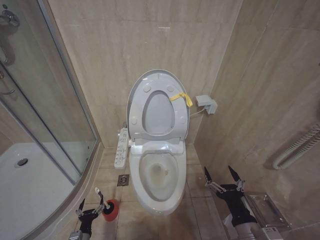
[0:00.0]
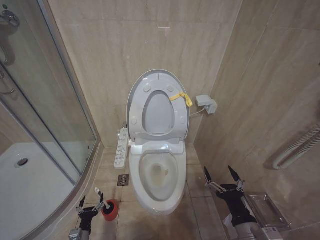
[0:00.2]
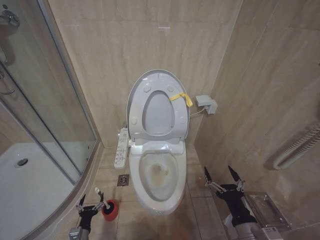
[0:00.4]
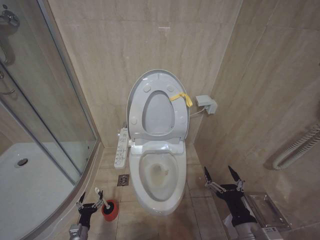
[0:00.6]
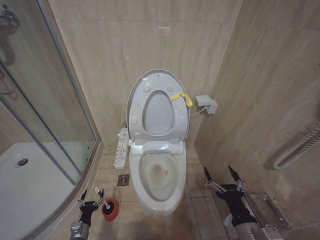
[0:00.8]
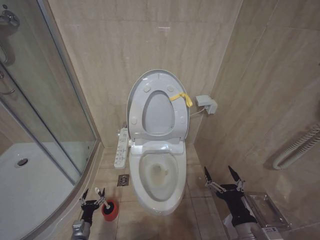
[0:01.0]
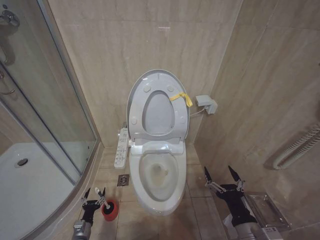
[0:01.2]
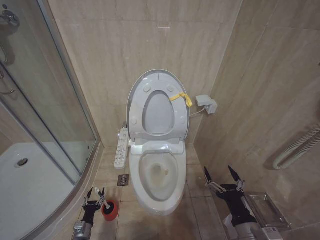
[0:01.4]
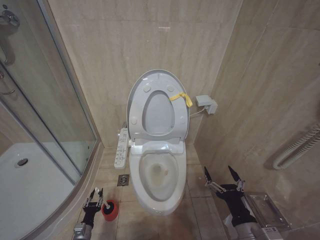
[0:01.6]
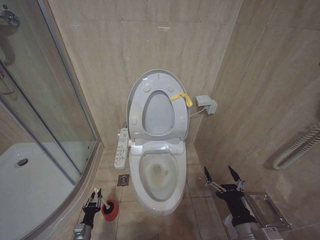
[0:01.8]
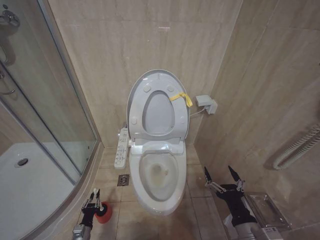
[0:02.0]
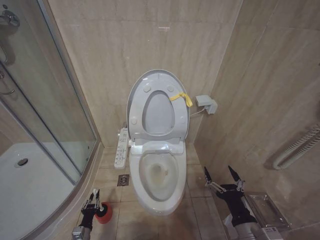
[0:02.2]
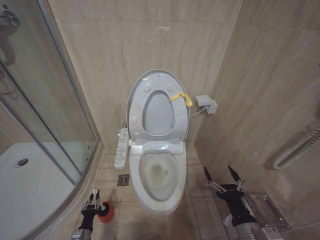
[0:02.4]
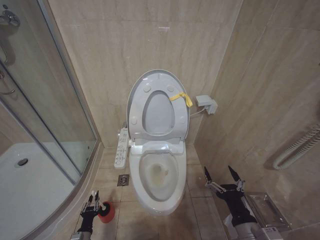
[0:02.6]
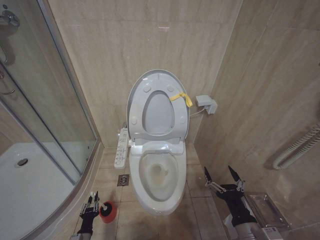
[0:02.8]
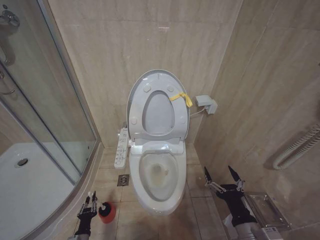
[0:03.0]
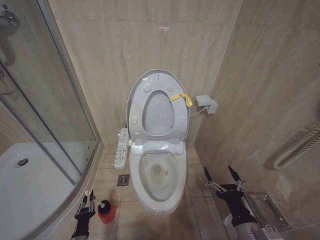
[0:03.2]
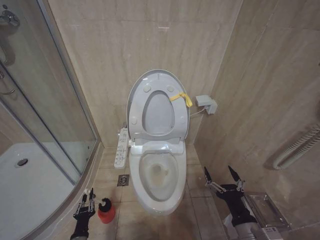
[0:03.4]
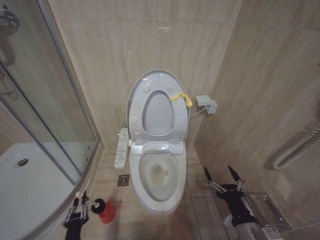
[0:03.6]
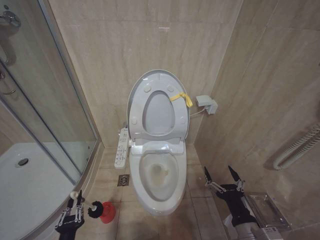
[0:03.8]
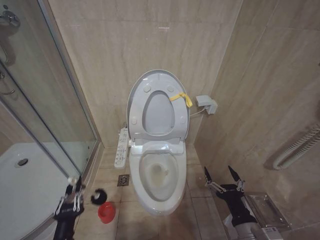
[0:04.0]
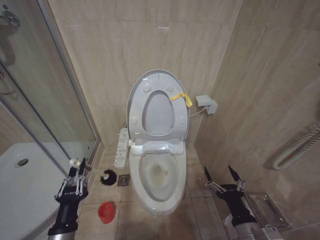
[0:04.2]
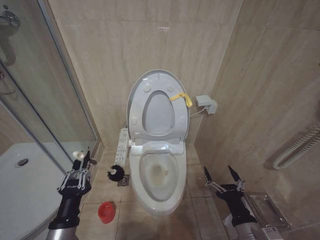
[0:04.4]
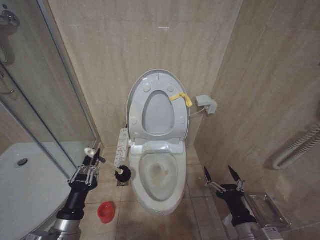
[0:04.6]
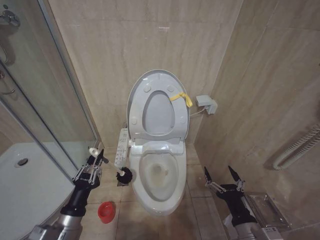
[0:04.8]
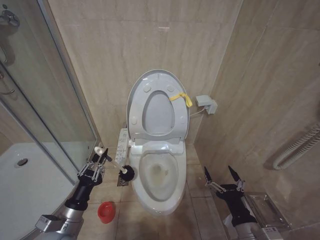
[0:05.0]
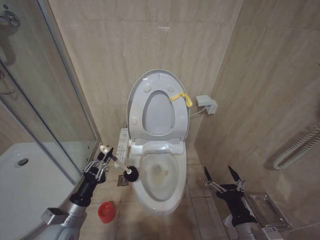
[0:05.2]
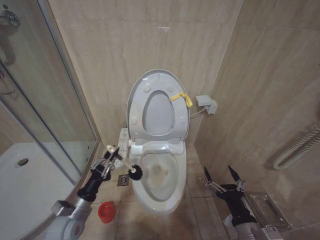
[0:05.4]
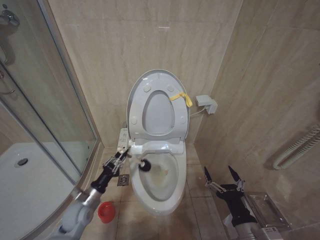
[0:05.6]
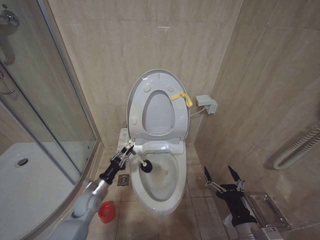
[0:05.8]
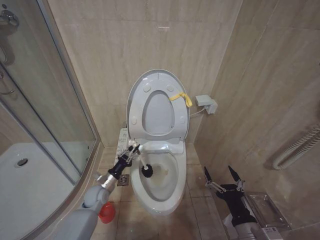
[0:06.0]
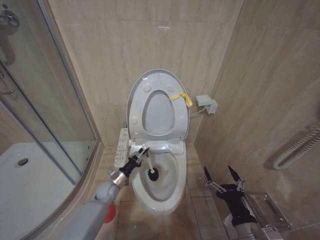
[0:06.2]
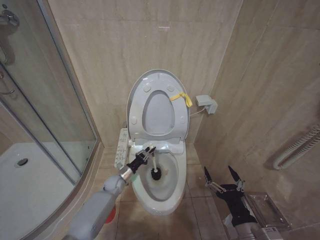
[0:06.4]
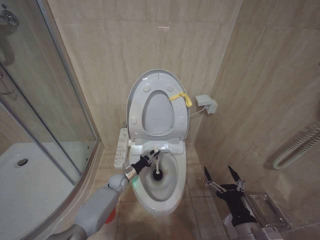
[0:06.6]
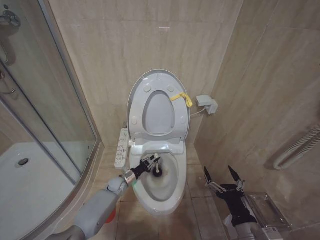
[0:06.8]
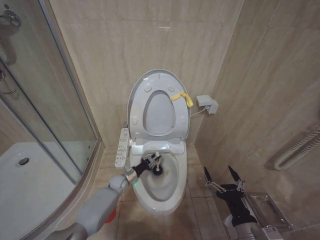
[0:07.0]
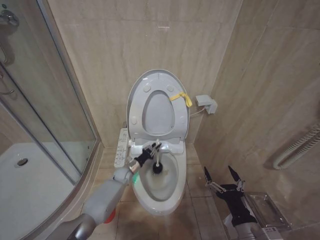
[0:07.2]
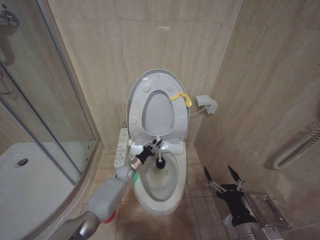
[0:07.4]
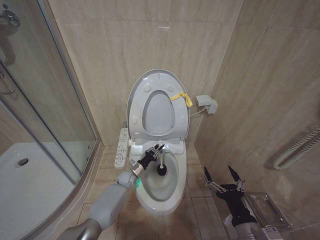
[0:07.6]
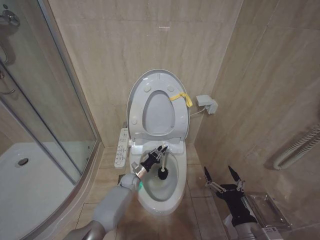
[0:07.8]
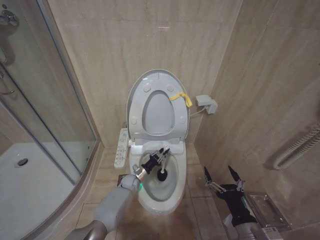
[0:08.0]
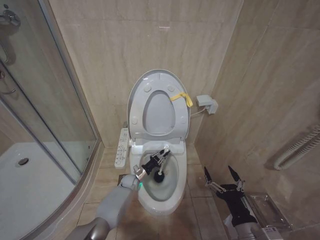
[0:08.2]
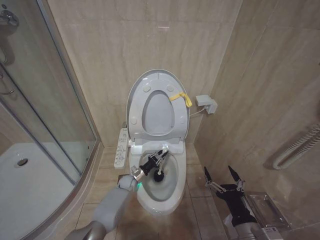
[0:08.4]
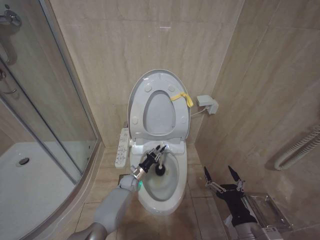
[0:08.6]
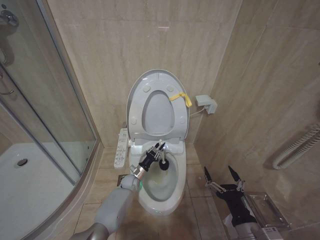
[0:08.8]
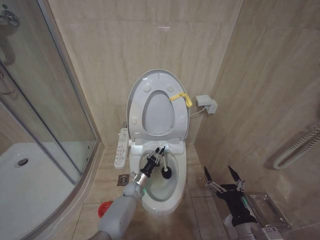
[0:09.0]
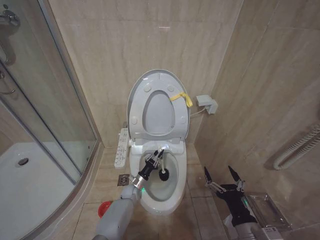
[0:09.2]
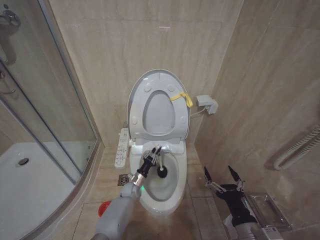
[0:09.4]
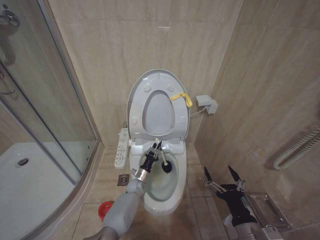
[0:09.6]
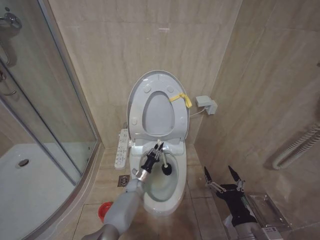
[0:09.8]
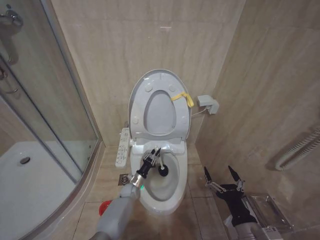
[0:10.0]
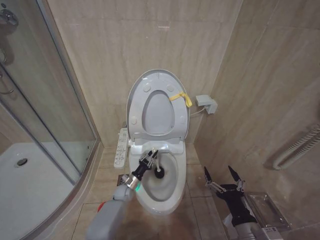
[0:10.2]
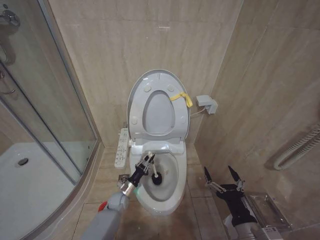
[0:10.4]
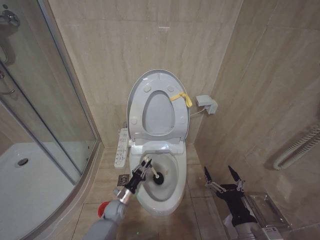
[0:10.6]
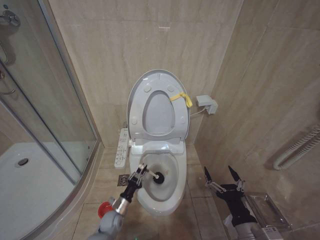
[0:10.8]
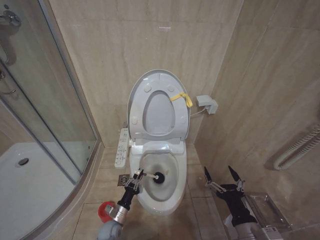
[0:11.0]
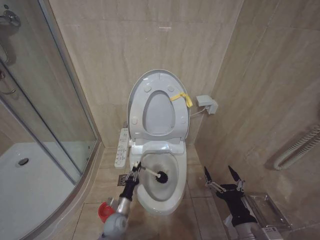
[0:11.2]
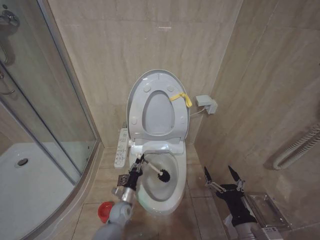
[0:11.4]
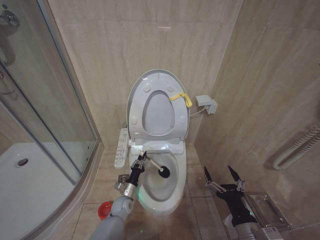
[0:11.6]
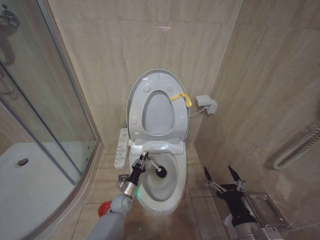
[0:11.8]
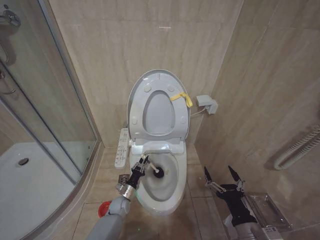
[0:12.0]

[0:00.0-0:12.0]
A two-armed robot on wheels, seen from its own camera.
Task of the whole recording: Open the toilet lid, clean the toilet bowl with a toilet brush, close the toilet lid, and flush.
0:00.0 to 0:01.6: The left gripper changes place by approximately 5 cm.
0:01.6 to 0:03.0: The left gripper closes.
0:03.0 to 0:04.4: The left gripper travels upward by approximately 30 cm.
0:04.4 to 0:06.0: The left gripper goes about 30 cm forward and downward.
0:06.0 to 0:07.6: The left gripper is displaced to the right and forward by approximately 15 cm.
0:07.6 to 0:09.0: The left gripper moves approximately 5 cm.
0:09.0 to 0:10.4: The left gripper shifts some 5 cm to the left.
0:10.4 to 0:12.0: The left gripper moves roughly 10 cm backward and comes back.

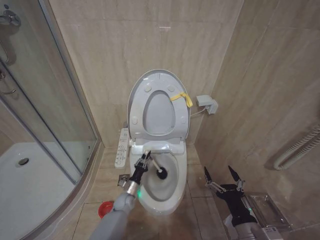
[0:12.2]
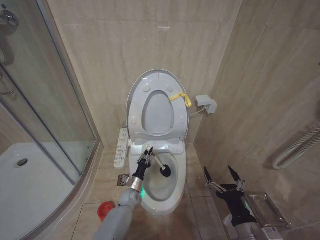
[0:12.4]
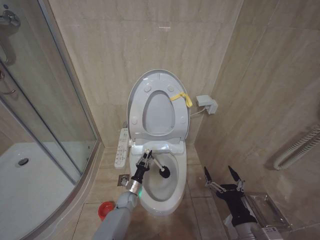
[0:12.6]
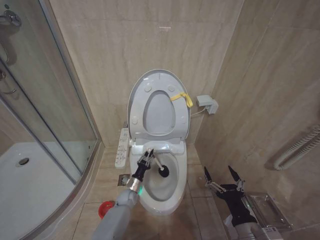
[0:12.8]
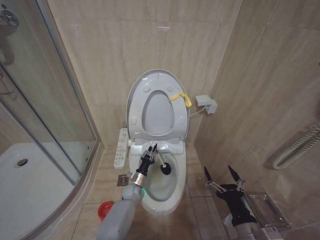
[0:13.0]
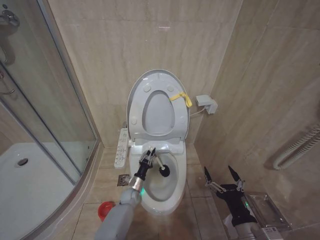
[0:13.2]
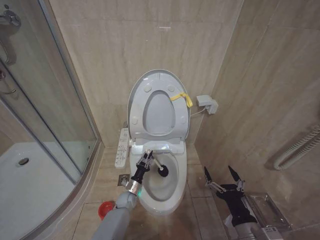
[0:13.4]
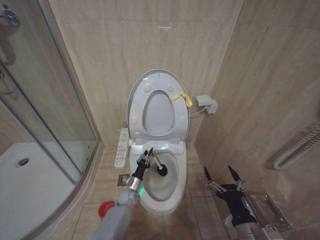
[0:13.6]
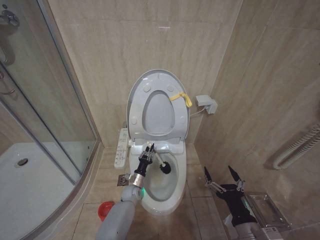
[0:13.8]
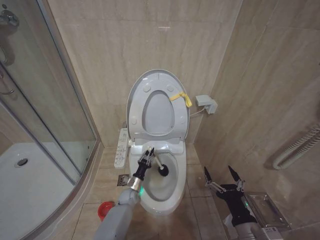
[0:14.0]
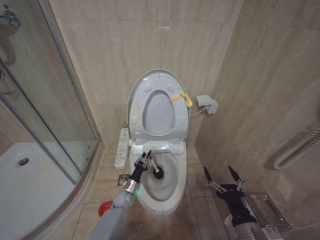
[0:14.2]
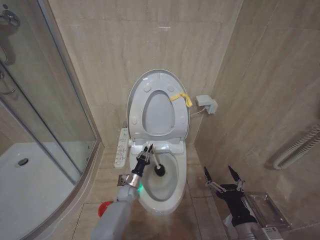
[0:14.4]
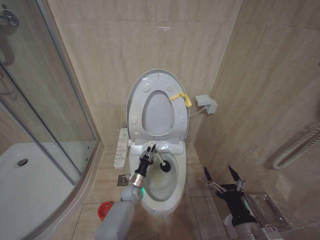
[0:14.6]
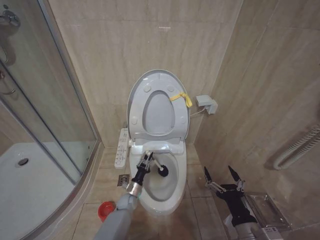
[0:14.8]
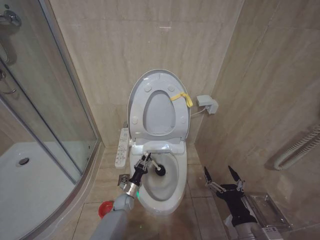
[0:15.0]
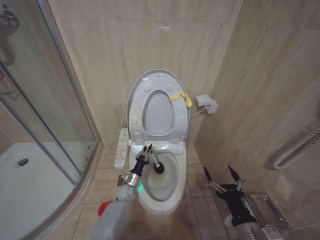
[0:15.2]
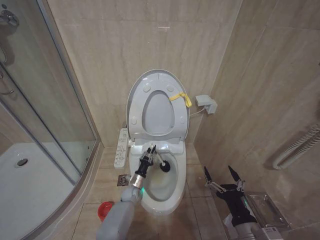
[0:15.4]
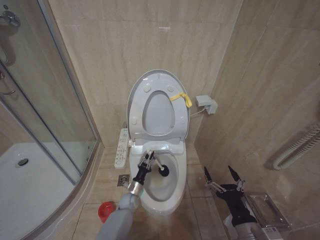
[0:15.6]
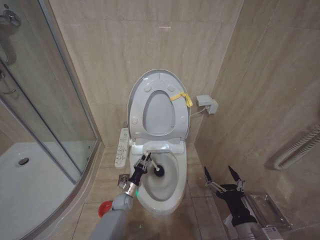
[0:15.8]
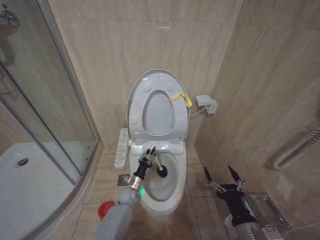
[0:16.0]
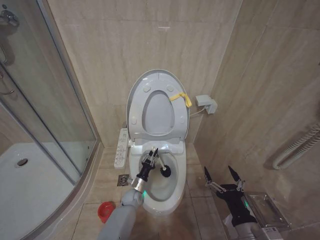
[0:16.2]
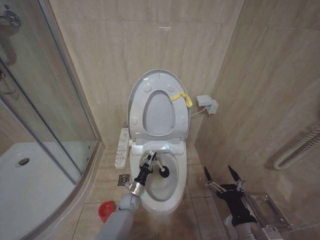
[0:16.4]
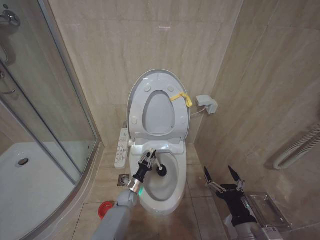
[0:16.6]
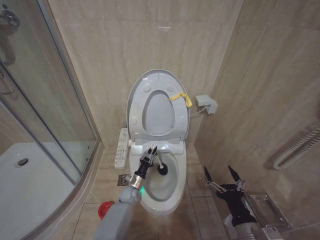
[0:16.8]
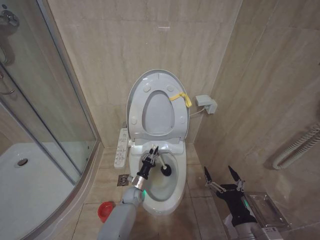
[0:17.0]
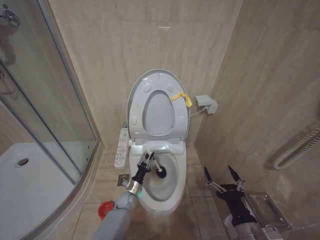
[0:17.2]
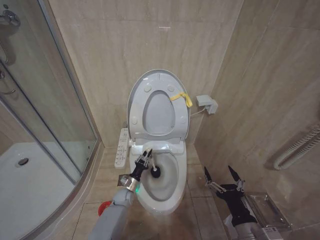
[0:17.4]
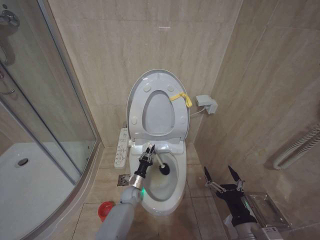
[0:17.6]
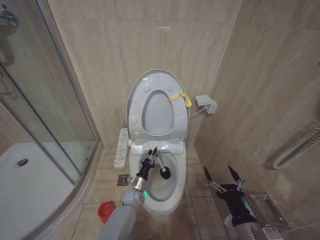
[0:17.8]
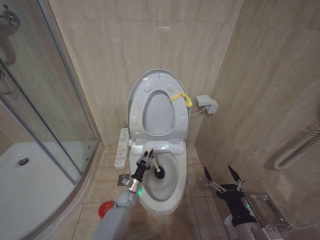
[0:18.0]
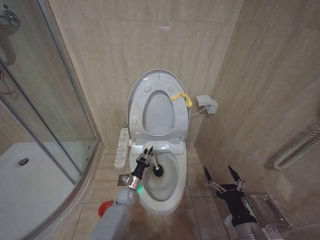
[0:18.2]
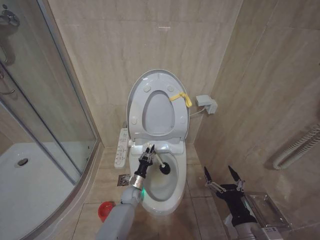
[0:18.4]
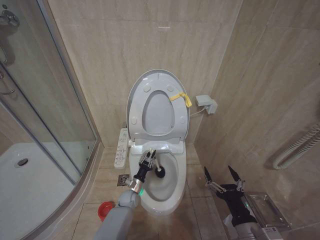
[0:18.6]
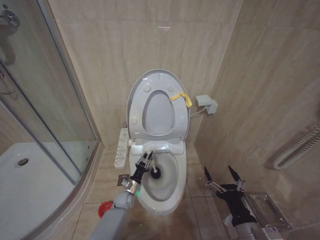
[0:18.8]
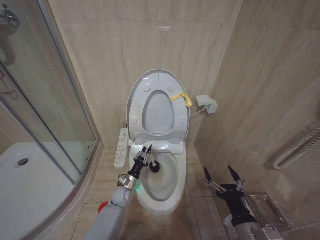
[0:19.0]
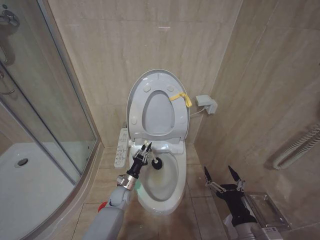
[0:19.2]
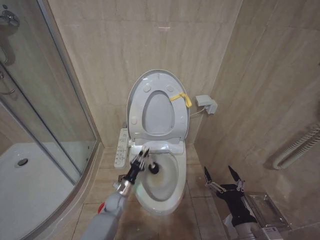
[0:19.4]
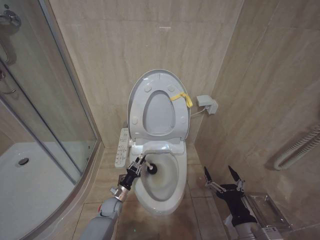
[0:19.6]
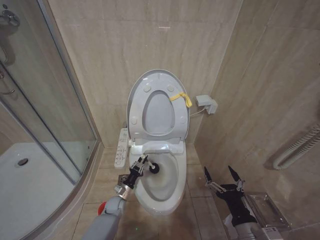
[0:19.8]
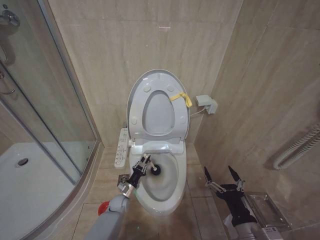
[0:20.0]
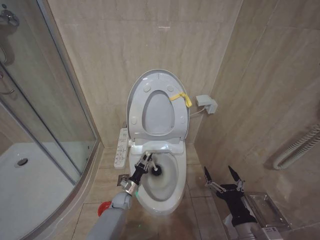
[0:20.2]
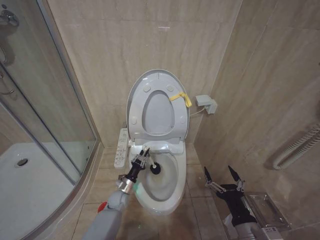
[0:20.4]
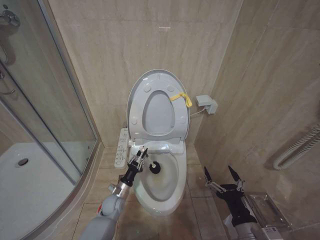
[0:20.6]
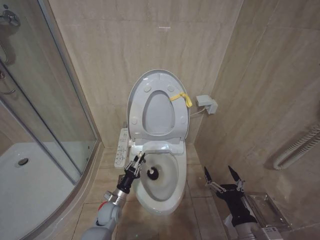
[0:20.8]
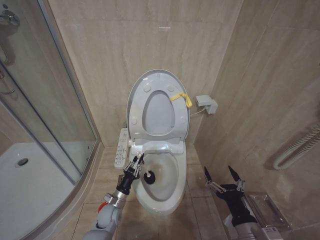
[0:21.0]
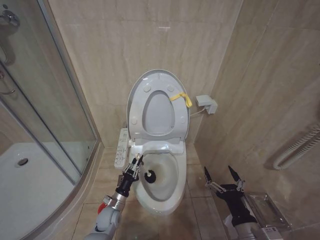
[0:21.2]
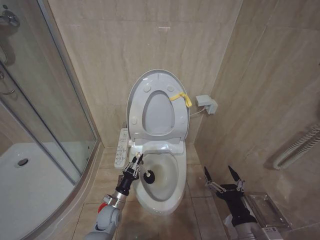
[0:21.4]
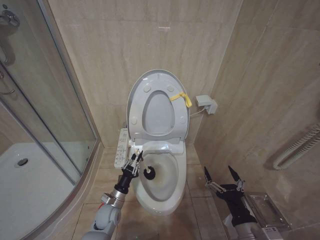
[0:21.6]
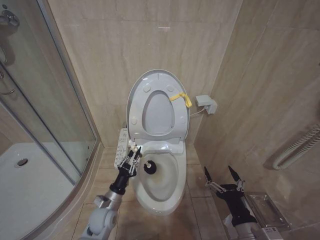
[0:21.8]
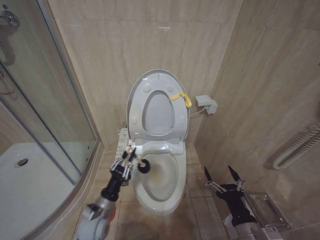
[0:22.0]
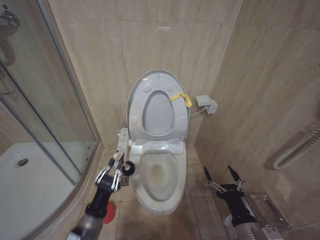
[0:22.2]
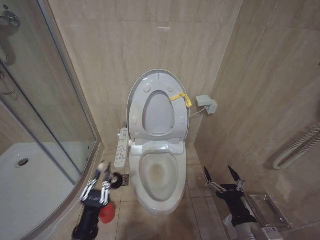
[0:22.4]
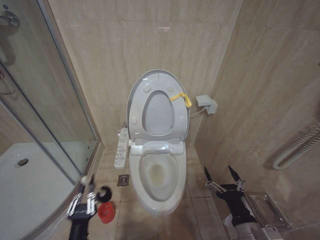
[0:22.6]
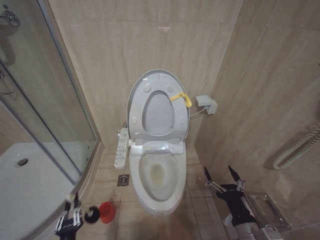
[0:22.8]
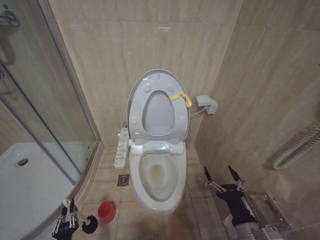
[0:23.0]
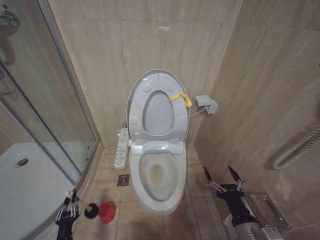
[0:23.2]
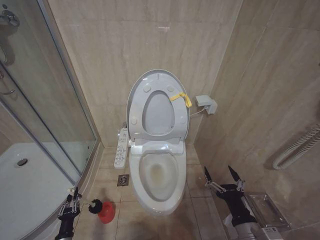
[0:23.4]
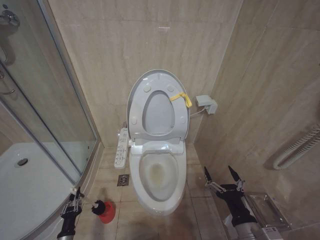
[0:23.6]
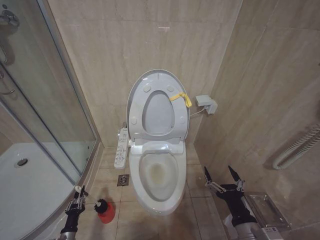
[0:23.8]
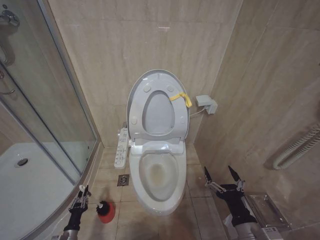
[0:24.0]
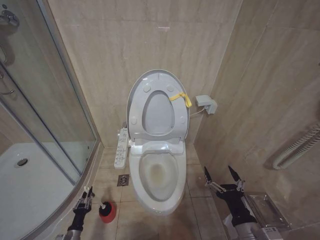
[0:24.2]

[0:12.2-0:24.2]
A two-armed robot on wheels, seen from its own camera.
Task of the whole recording: Open the toilet lid, clean the toilet bowl with a toilet brush, close the toilet lid, and flush.
0:12.2 to 0:13.8: The left gripper moves some 5 cm.
0:13.8 to 0:16.6: The grippers make only small movements.
0:18.2 to 0:19.8: The left gripper goes some 5 cm to the left.
0:19.8 to 0:21.2: The left gripper is displaced backward by some 5 cm.
0:21.2 to 0:22.6: The left gripper goes roughly 25 cm backward and upward.
0:22.6 to 0:24.2: The left gripper travels downward, to the left and forward by some 30 cm.
